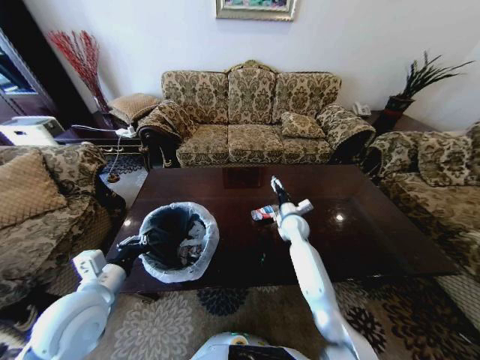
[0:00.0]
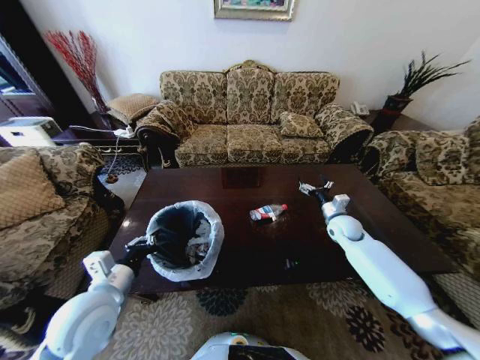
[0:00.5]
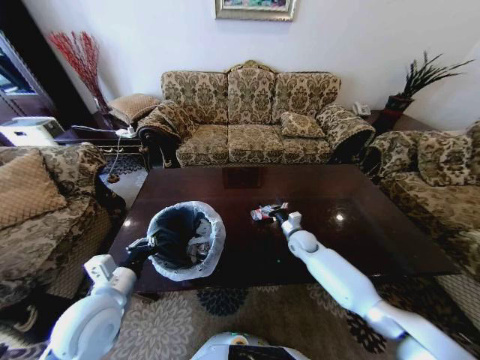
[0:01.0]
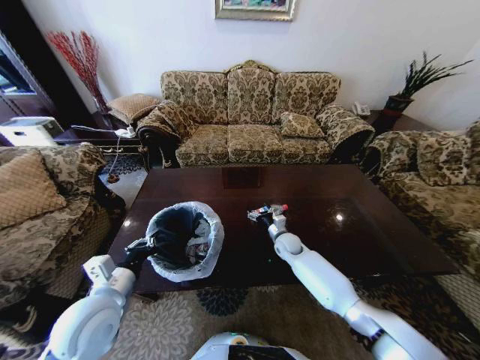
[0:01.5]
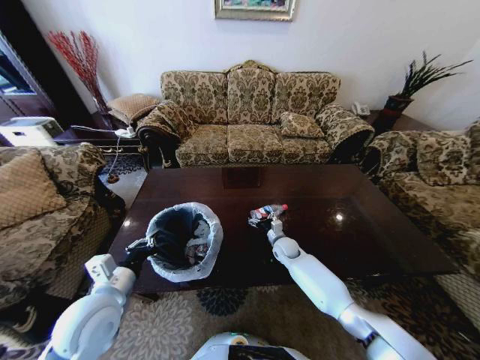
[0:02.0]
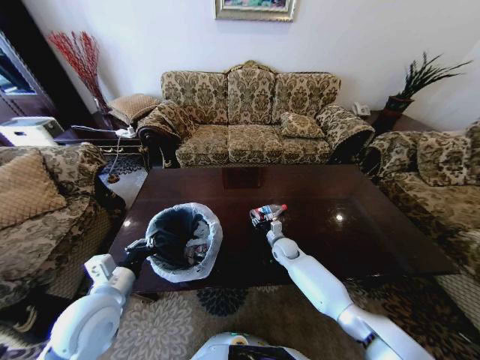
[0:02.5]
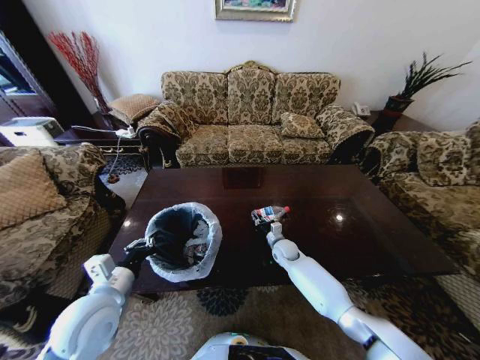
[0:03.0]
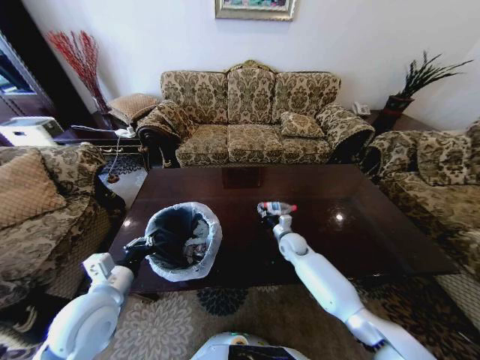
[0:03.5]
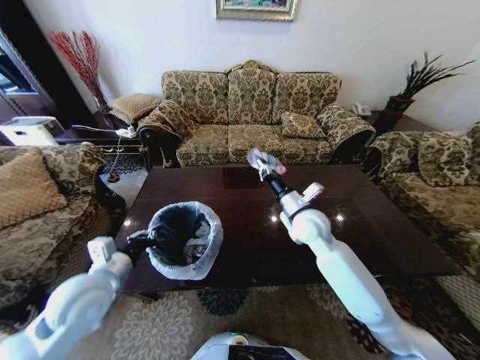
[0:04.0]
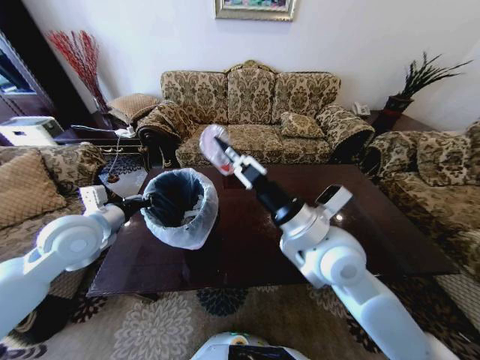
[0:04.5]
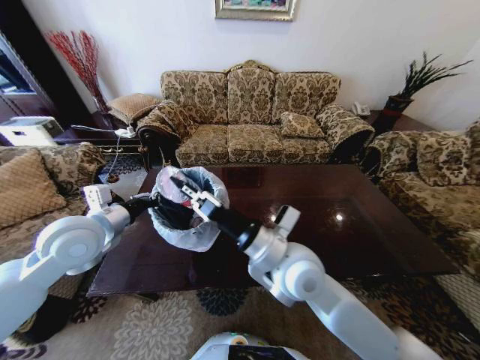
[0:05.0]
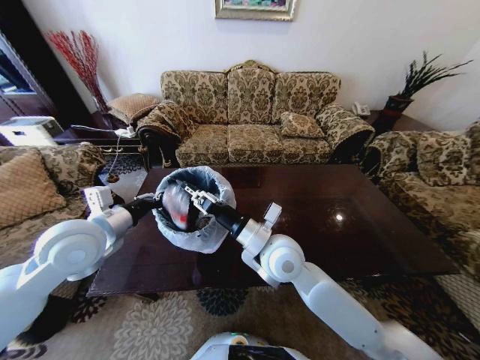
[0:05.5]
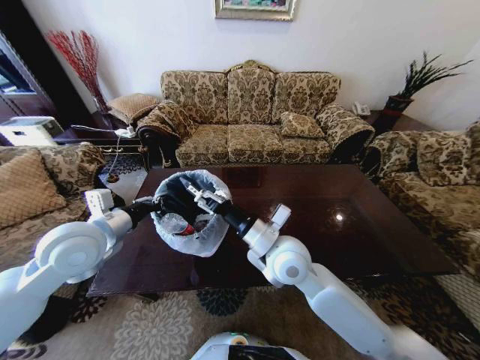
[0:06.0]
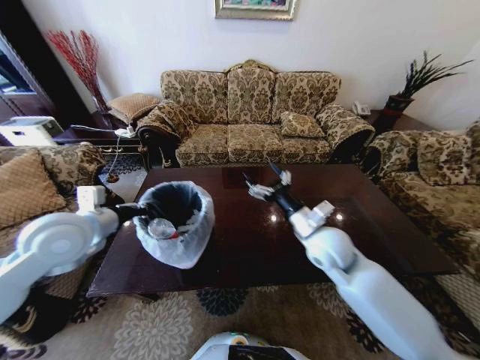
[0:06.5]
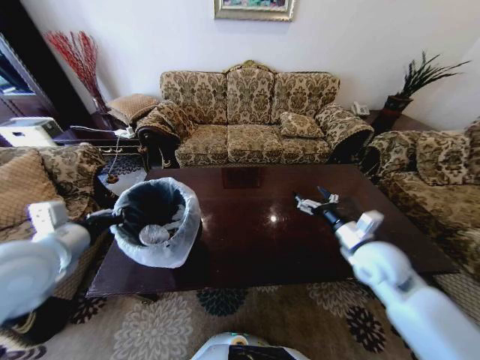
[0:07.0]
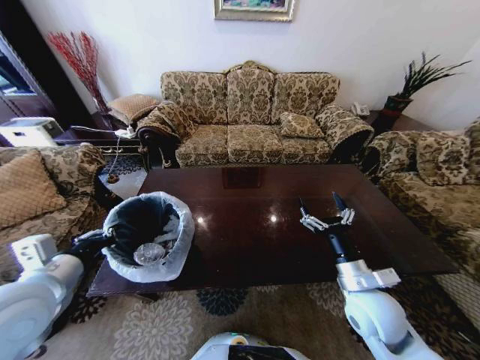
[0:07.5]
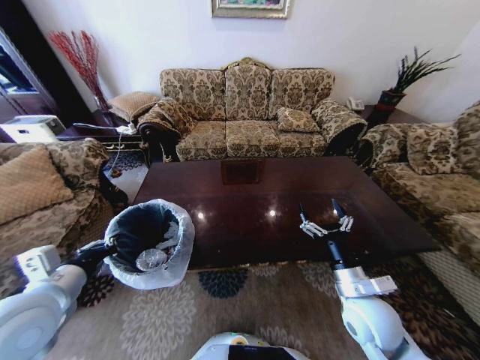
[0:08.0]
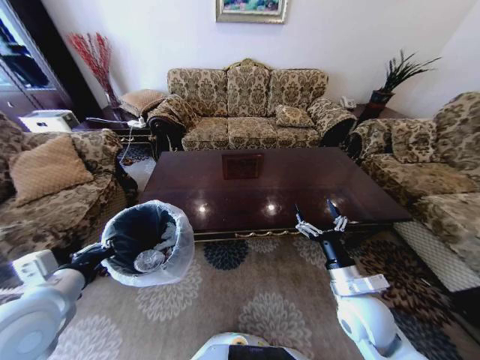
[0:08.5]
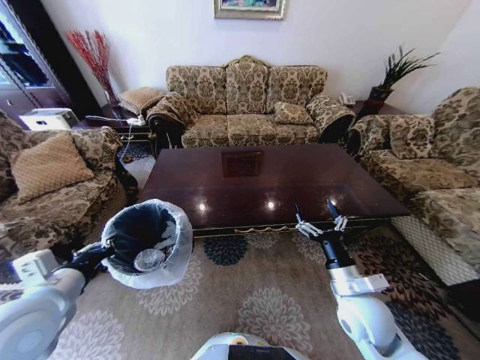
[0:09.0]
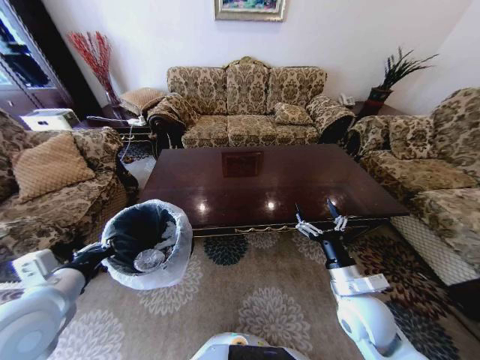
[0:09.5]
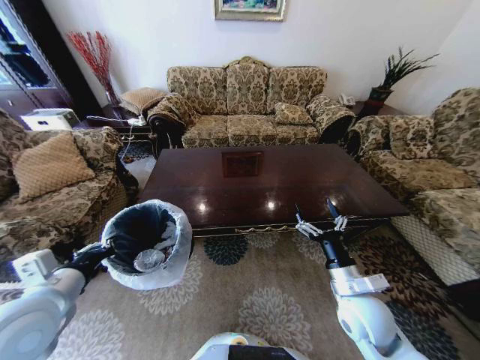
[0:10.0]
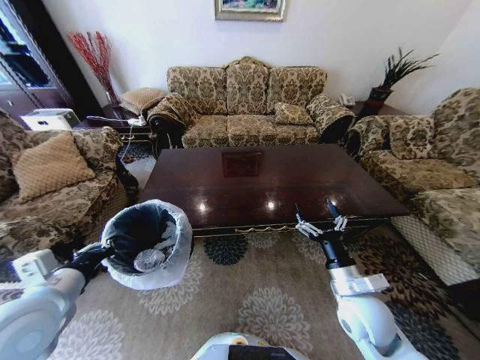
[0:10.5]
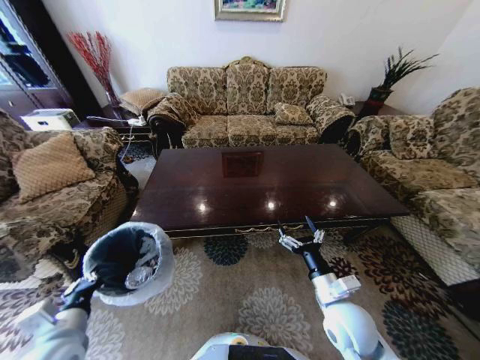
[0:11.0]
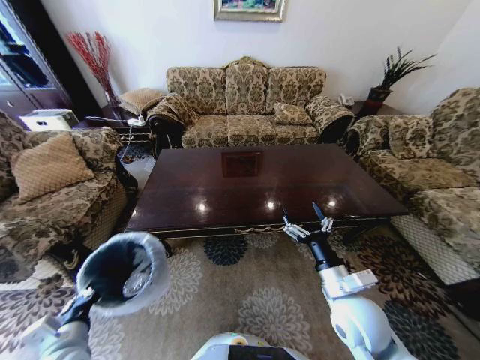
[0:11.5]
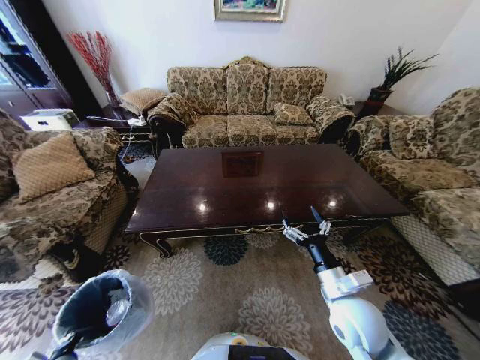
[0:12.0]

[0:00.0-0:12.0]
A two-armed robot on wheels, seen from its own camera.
Task of the whole recording: Move to the front of the table and place the trash on the table into the trash bin.
0:00.0 to 0:02.0: The right gripper travels downward by about 10 cm, and reaches roughly 15 cm to the right, then returns.
0:02.0 to 0:04.0: The right gripper moves upward, some 25 cm, and closes its fingers.
0:04.0 to 0:06.0: The left gripper moves upward and forward, approximately 10 cm. Meanwhile the right gripper shifts some 15 cm backward and to the left, and opens its fingers.
0:06.0 to 0:08.0: The left gripper shifts about 10 cm backward; the right gripper moves to the right, downward and backward, roughly 20 cm.
0:10.0 to 0:12.0: The left gripper moves downward, about 25 cm.

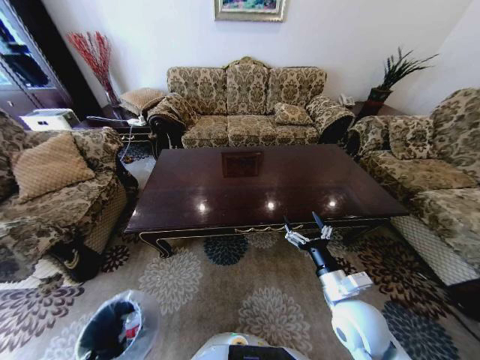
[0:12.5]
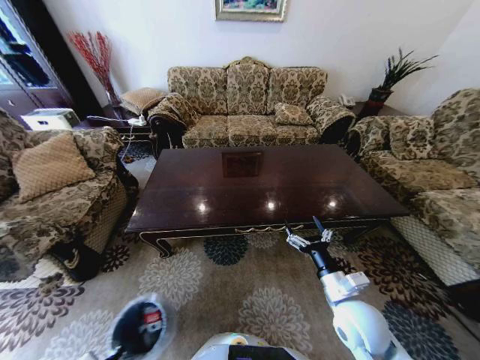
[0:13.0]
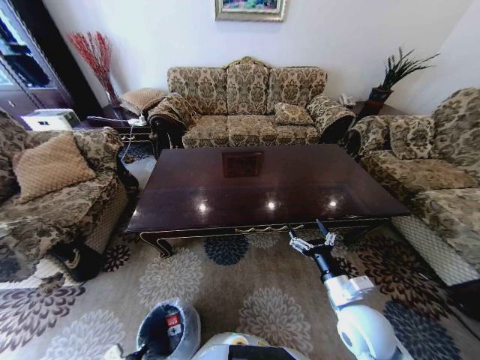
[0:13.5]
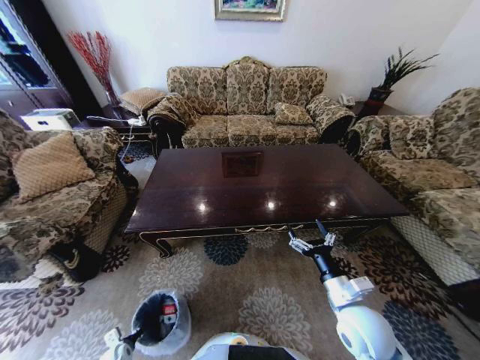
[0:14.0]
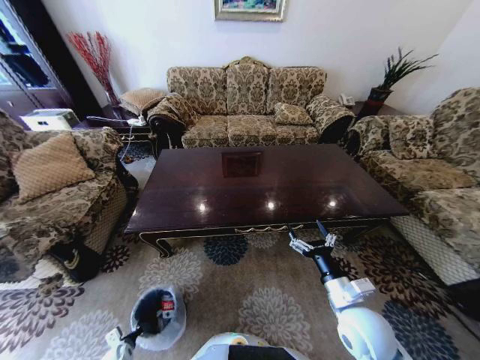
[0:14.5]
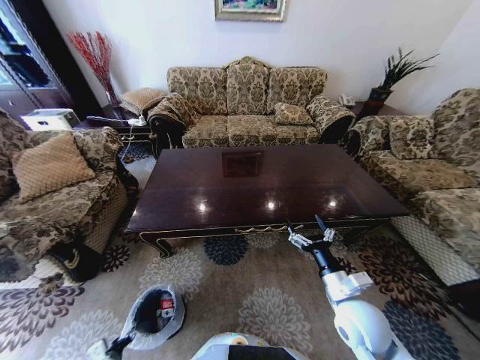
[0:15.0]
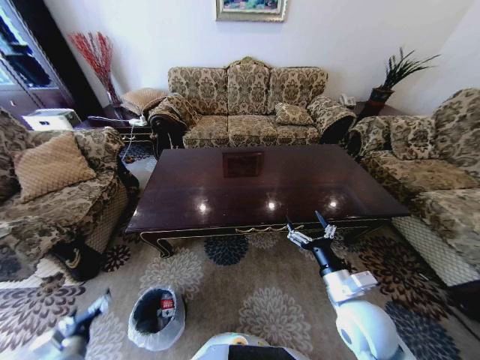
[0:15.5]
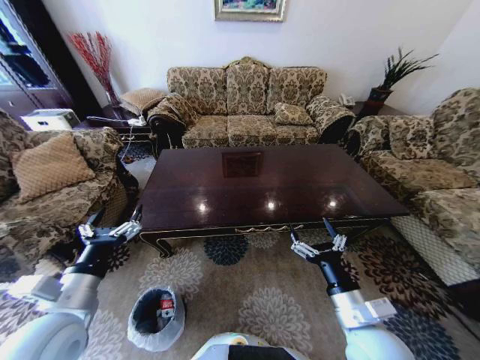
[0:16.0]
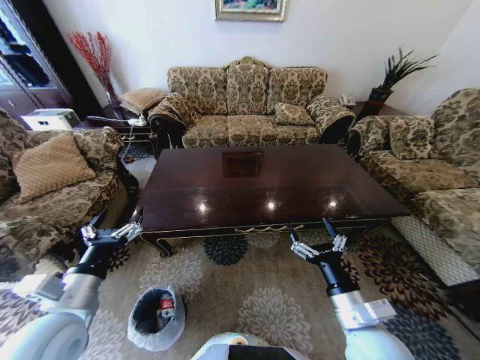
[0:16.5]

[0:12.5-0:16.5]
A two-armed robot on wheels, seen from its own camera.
Task of the whole recording: Move to the front of the table and place the trash on the table into the trash bin.
0:12.5 to 0:14.5: The left gripper is displaced downward and forward by about 15 cm.
0:14.5 to 0:16.5: The left gripper travels upward by roughly 40 cm, and opens its fingers, while the right gripper changes place by about 5 cm.
